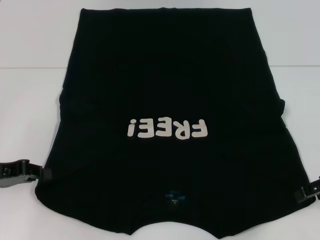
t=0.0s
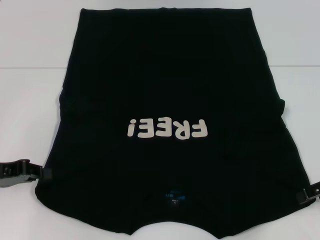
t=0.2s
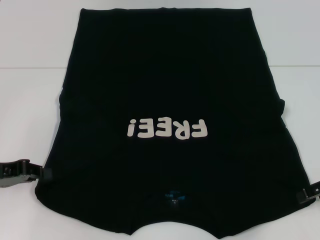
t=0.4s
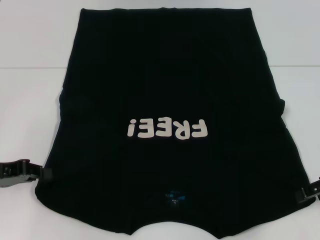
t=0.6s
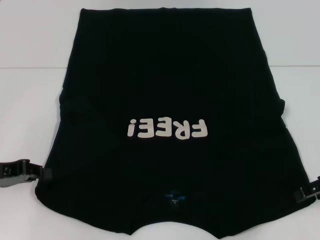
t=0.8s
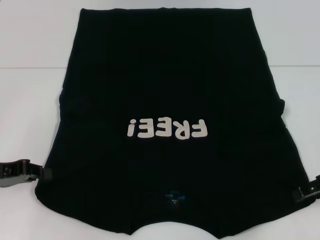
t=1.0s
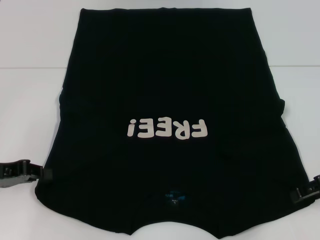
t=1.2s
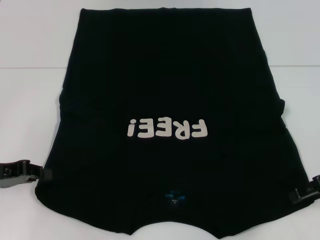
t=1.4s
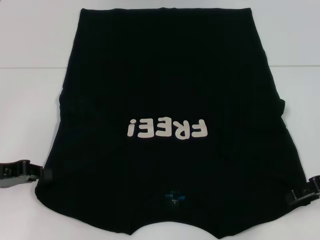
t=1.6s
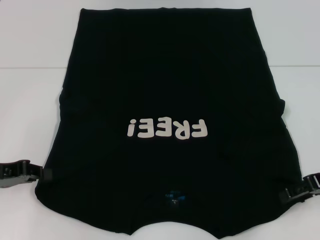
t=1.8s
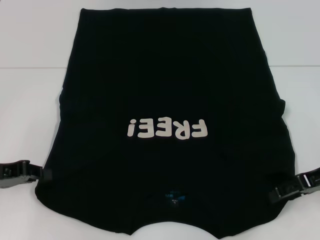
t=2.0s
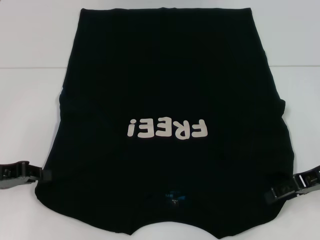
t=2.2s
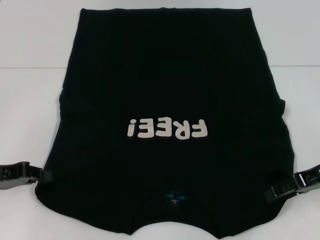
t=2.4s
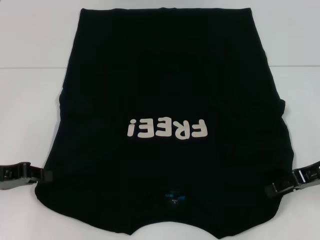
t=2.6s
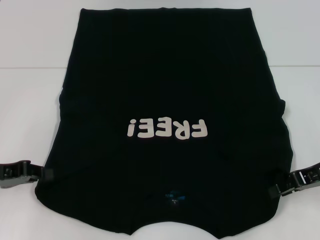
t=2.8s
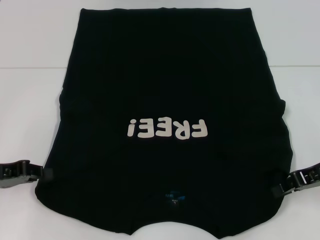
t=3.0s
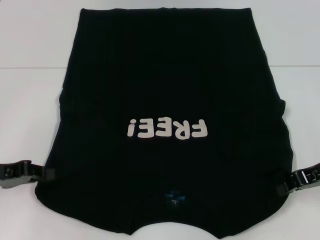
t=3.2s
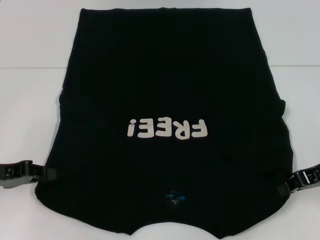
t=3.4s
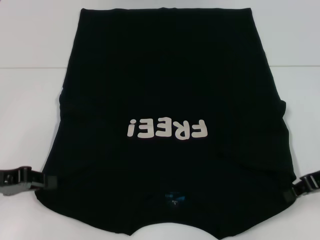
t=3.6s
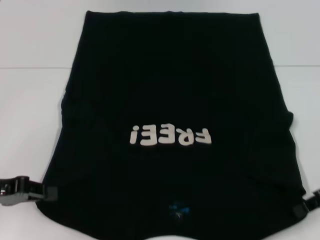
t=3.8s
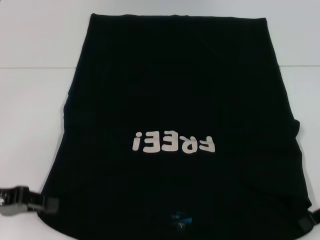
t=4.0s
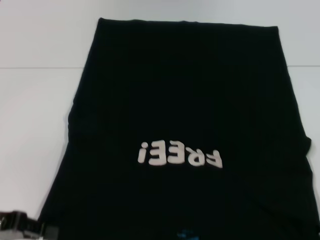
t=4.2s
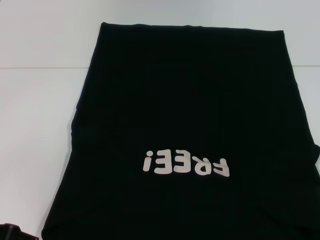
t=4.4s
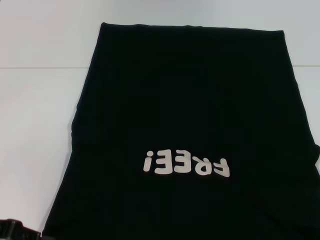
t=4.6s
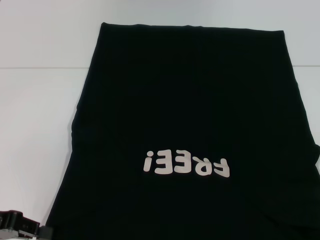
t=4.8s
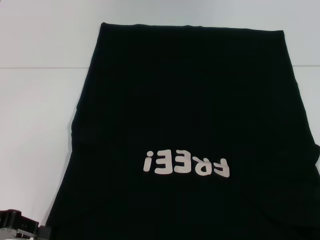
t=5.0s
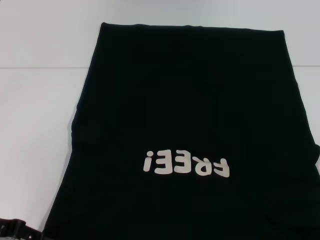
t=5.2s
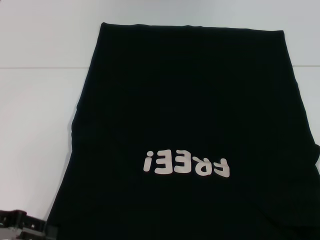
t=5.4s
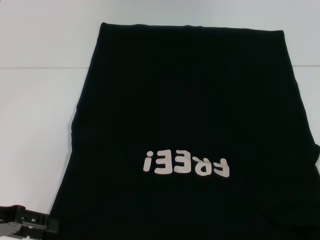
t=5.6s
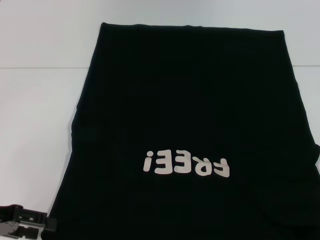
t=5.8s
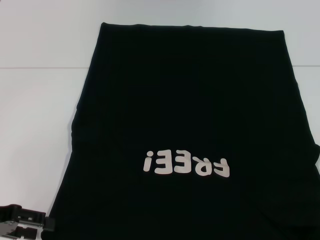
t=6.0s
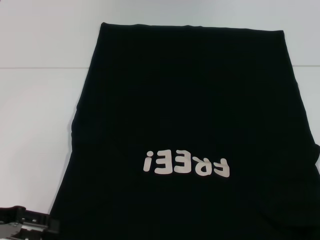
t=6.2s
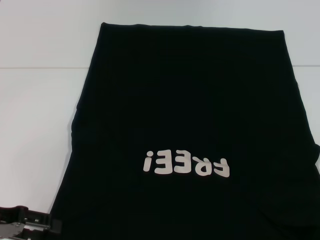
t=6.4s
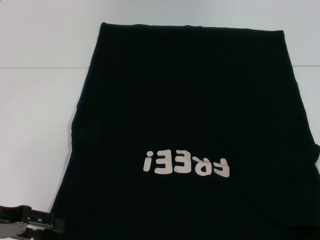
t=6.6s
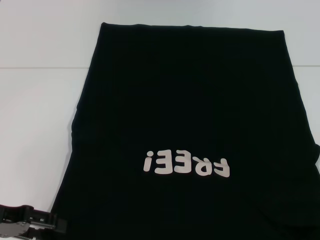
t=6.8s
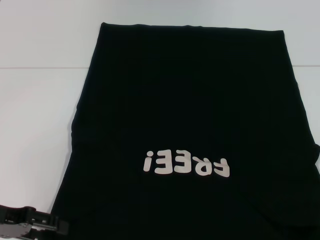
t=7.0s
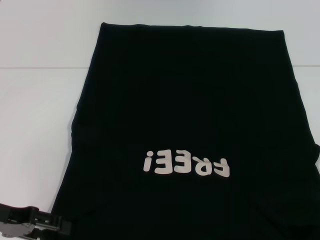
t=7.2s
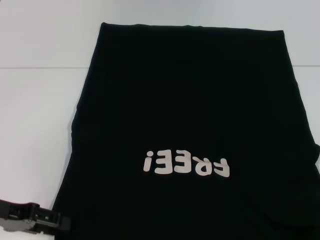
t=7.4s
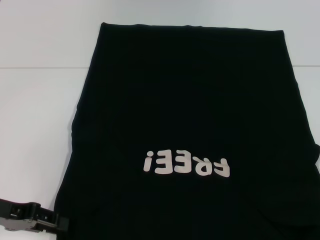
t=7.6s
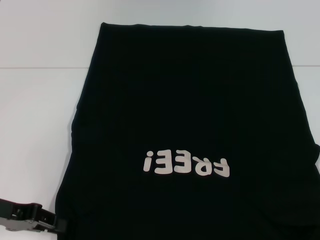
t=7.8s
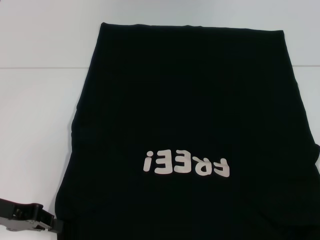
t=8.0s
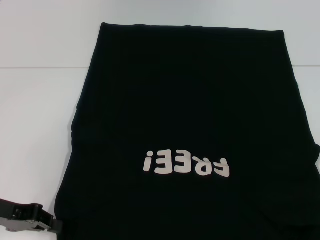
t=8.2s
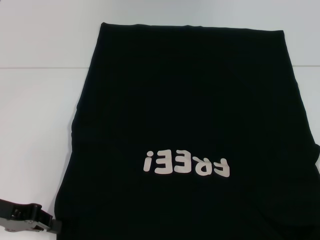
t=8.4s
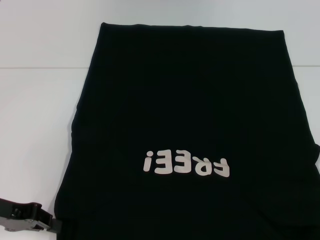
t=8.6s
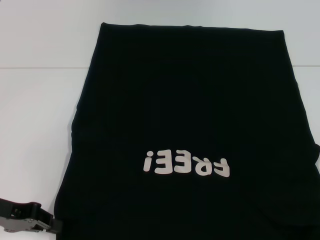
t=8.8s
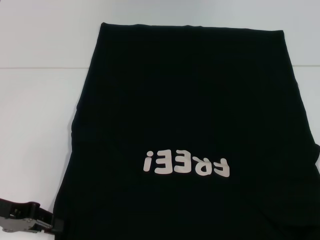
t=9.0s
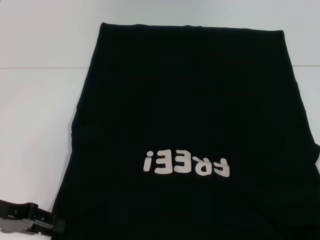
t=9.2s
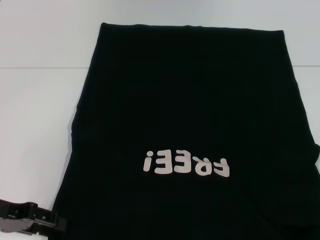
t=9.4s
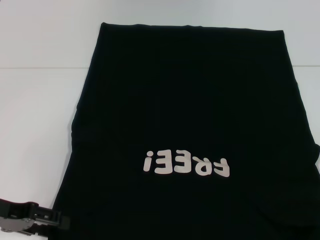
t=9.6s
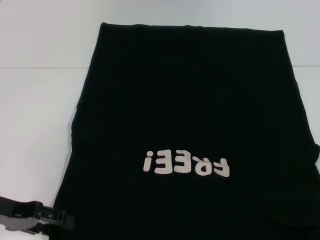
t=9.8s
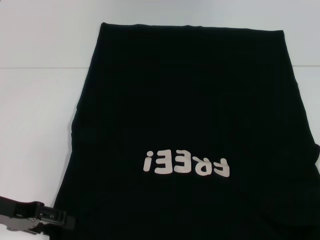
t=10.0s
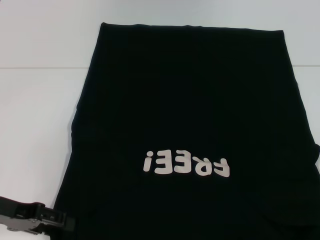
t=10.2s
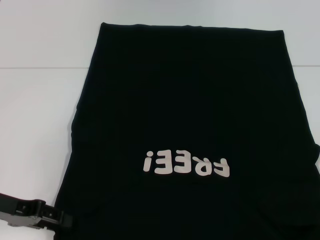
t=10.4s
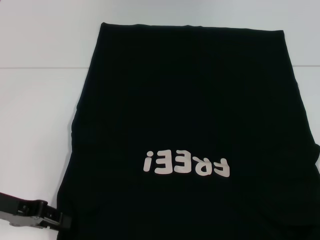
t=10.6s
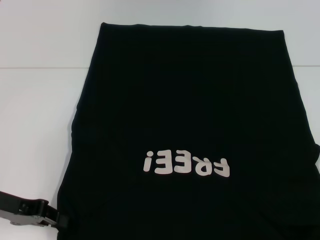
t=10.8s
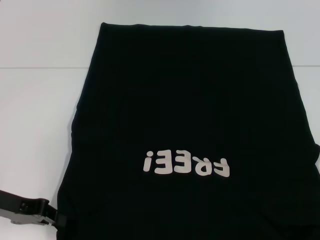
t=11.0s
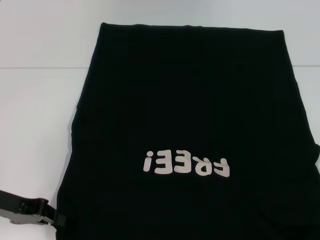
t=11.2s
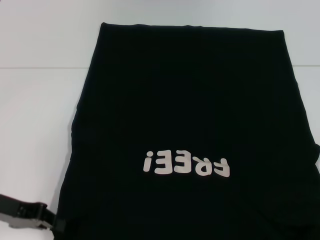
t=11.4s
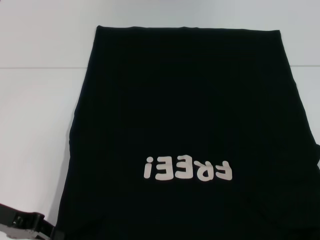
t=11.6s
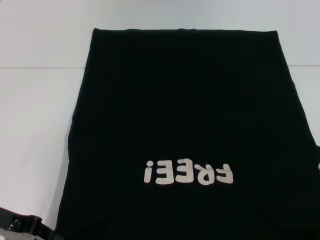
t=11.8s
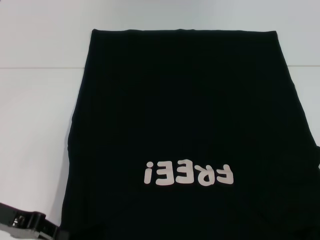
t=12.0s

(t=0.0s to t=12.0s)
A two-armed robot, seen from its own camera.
Step, t=0.0s - t=2.6s: Grab the bottom right corner with your right hand.
t=1.6s - t=3.0s: The grippers make only small movements.
t=3.0s - t=4.4s: The right gripper goes roughly 5 cm backward, and closes up; the left gripper ends up some 5 cm from where it was.
t=4.4s - t=6.0s: The left gripper opens its fingers.
t=6.0s - t=7.6s: The grippers move only a little.
t=9.0s - t=10.4s: The left gripper opens up.
t=10.4s - t=12.0s: The left gripper closes up.

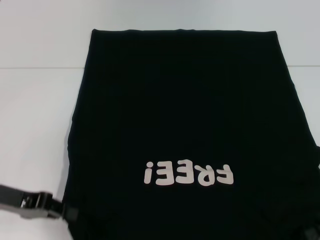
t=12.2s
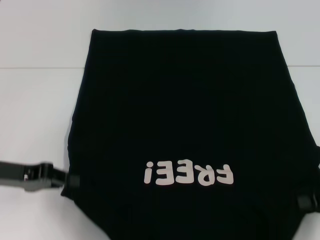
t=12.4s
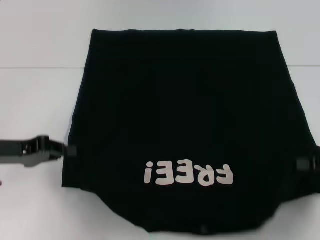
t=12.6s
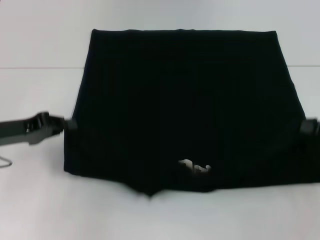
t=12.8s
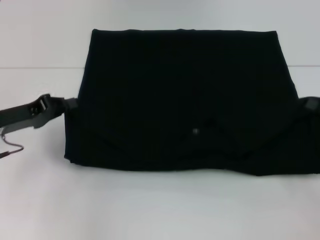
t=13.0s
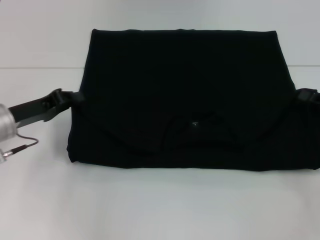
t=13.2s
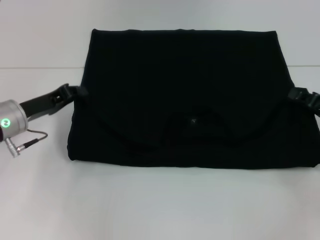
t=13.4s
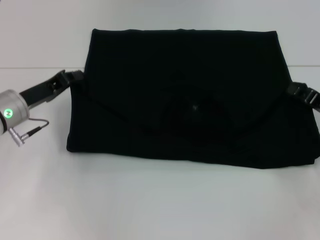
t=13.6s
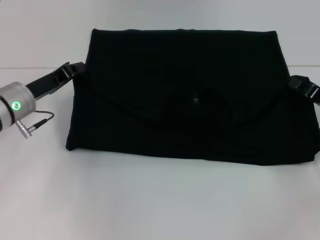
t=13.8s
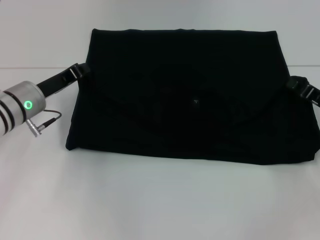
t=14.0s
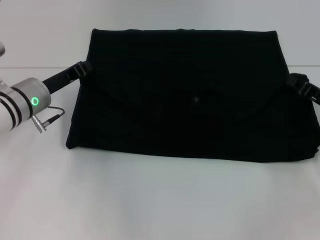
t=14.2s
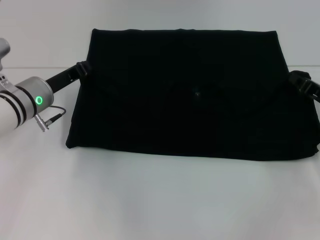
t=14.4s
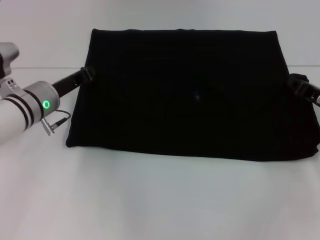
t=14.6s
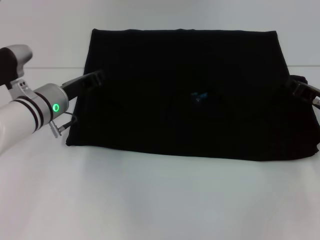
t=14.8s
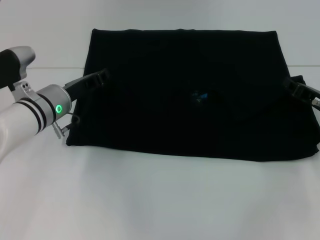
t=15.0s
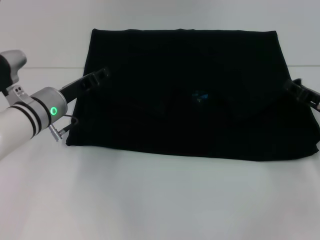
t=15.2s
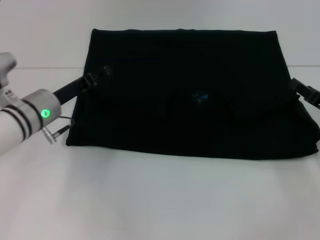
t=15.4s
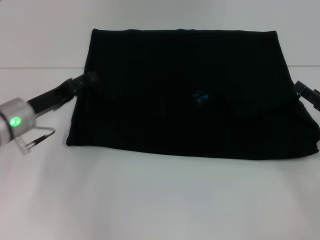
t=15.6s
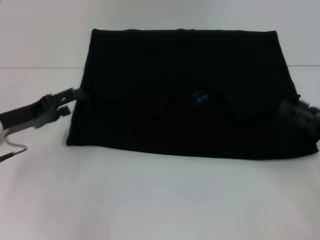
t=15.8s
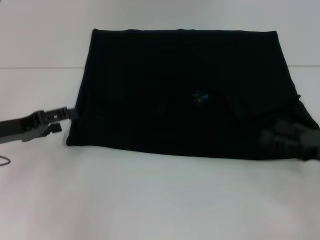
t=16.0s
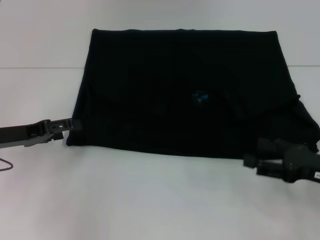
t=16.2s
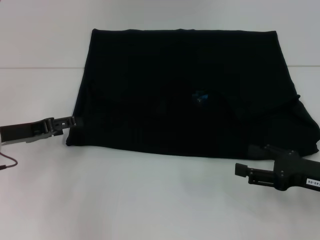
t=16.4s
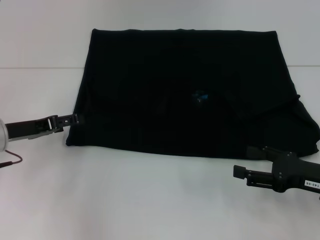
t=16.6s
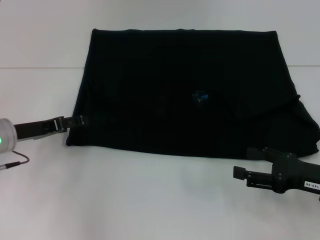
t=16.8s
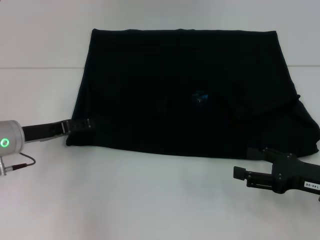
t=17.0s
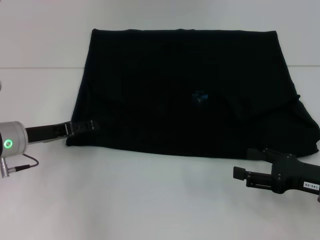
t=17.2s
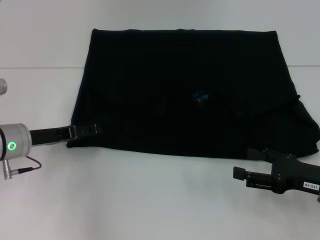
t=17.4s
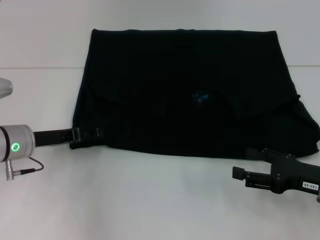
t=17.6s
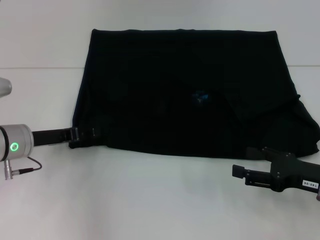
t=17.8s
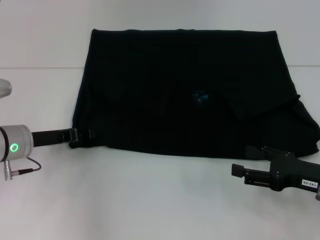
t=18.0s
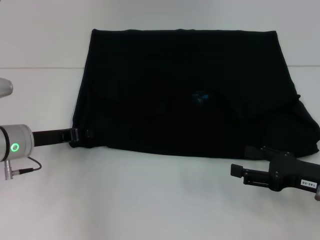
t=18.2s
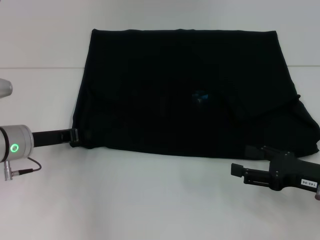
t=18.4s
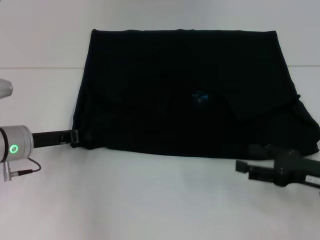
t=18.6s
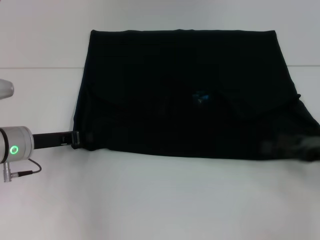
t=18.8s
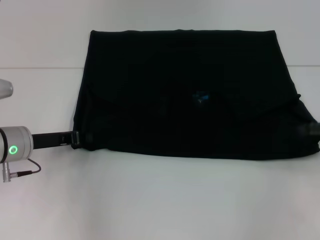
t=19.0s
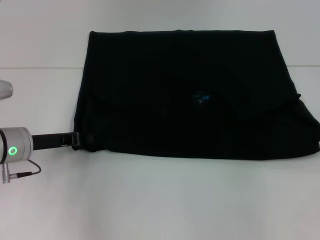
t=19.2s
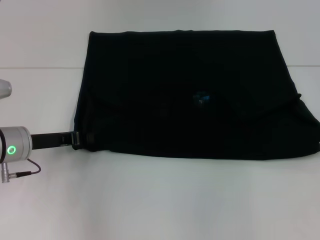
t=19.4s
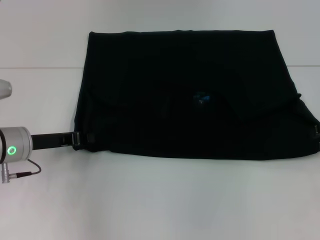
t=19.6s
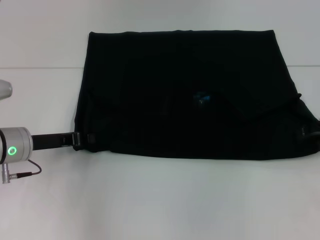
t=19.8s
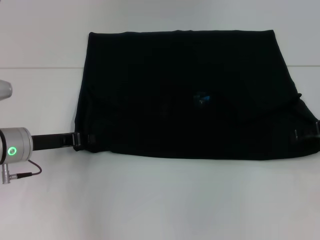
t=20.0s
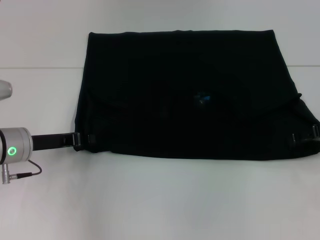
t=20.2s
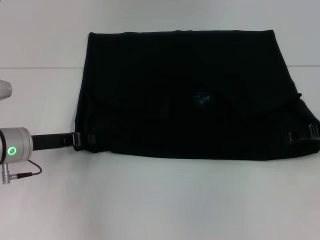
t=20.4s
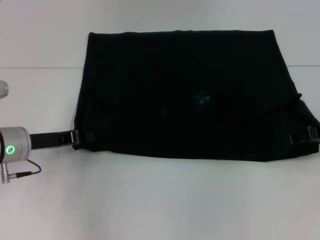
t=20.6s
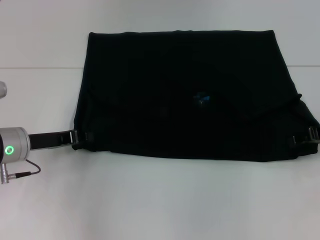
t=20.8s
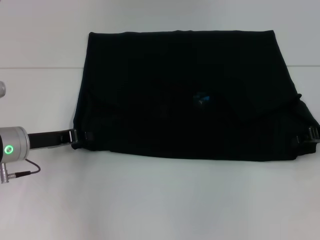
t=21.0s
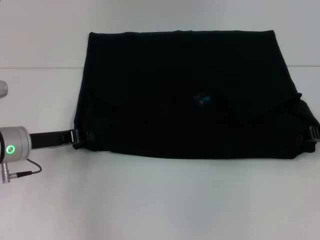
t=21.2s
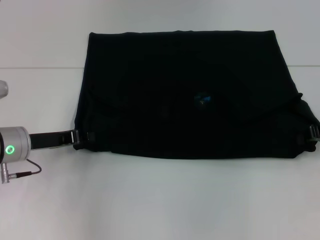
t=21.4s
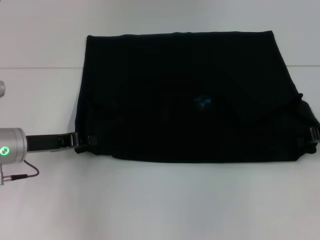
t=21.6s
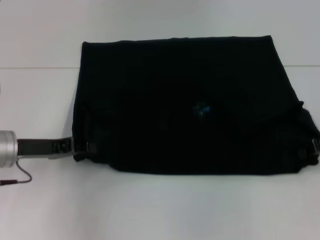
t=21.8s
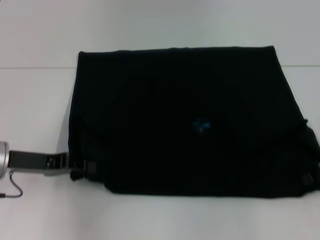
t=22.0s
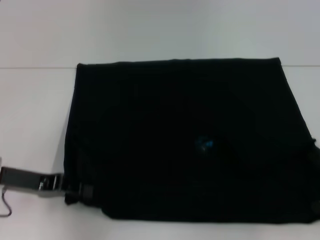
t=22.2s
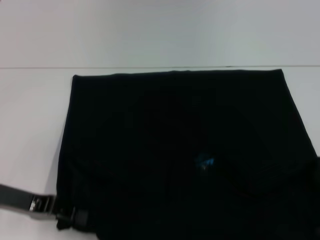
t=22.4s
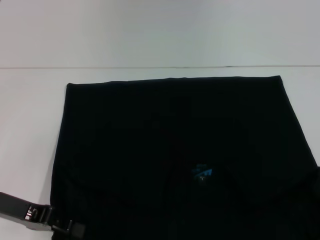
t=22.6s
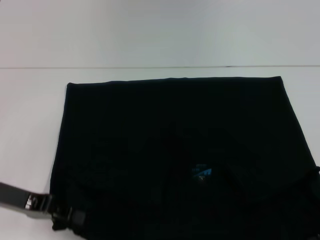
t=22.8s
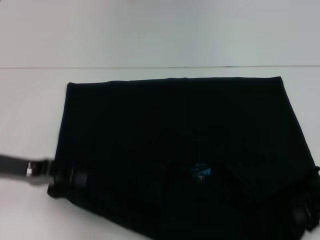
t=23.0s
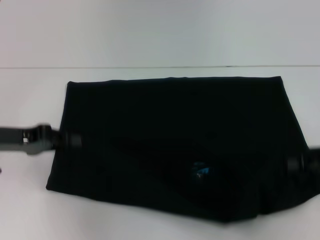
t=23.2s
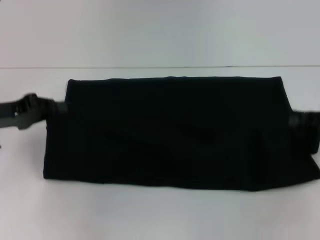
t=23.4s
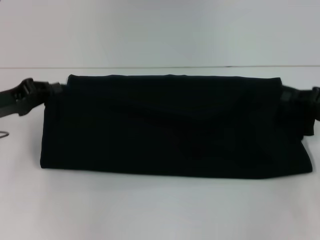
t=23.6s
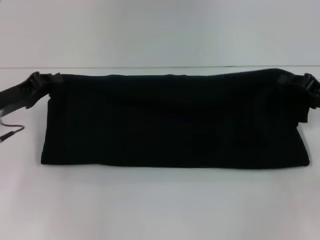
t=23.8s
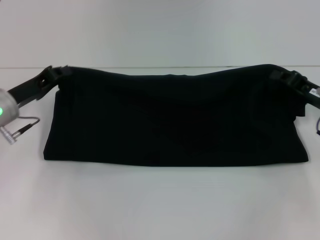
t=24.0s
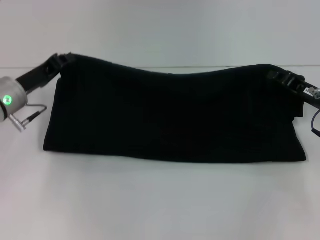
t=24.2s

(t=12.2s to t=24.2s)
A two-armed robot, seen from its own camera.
Step, t=12.2s - t=15.6s: Fold the clothes with your left hand.
Step, t=12.2s - t=15.6s: Fold the clothes with your right hand.
Step, t=15.8s - t=22.6s: Pull the clothes with your left hand.
Step, t=15.8s - t=22.6s: Pull the clothes with your right hand.
t=12.2s - t=13.8s: The two grippers go about 10 cm forward.
t=13.8s - t=15.2s: The left gripper ends up about 5 cm from where it was.
t=15.2s - t=16.6s: The right gripper travels backward by roughly 10 cm, and opens up, while the left gripper goes roughly 10 cm to the left, and opens up.
t=16.6s - t=18.2s: The left gripper closes.
t=18.2s - t=19.8s: The right gripper shifts some 15 cm forward, upward and to the right, while the left gripper closes its fingers.
t=19.8s - t=21.2s: The right gripper closes its fingers.
t=21.2s - t=22.6s: The two grippers go approximately 10 cm backward.
t=22.6s - t=24.2s: The grippers both shift forward by approximately 10 cm.
